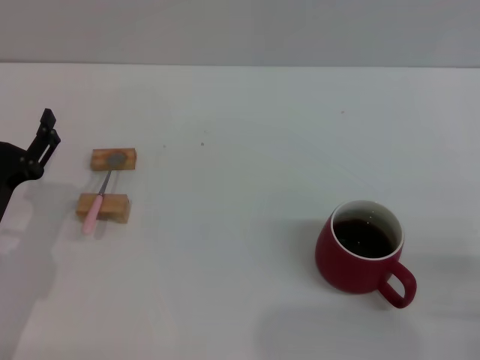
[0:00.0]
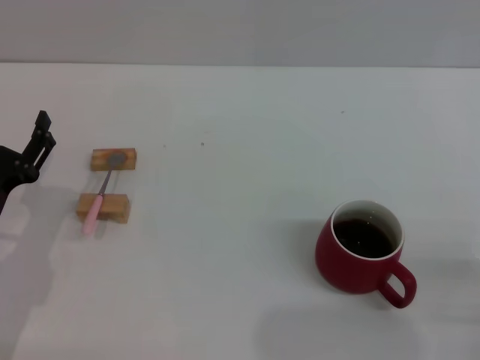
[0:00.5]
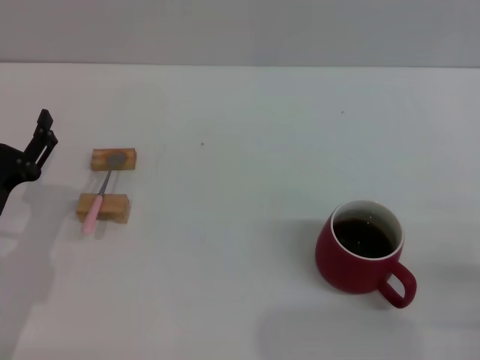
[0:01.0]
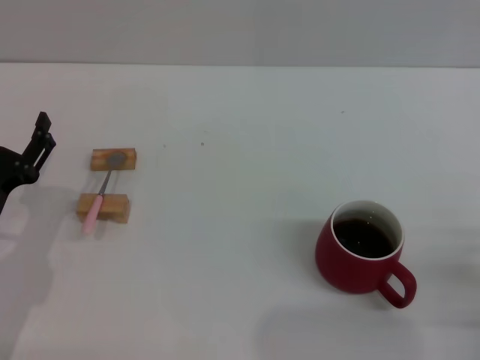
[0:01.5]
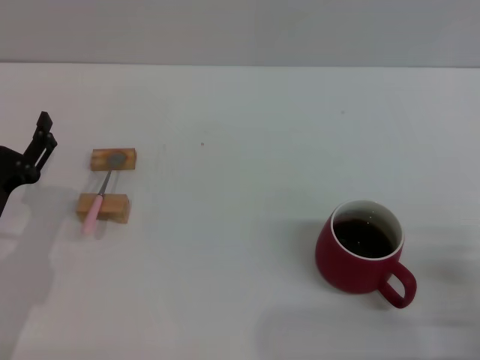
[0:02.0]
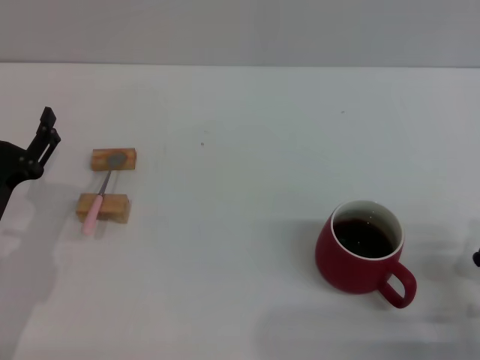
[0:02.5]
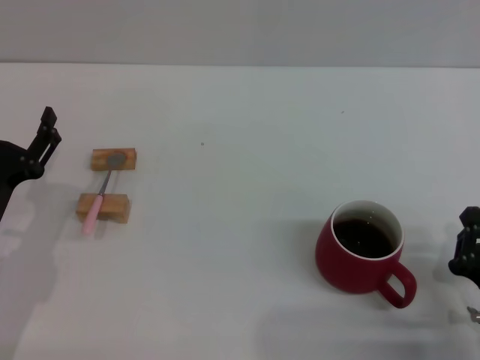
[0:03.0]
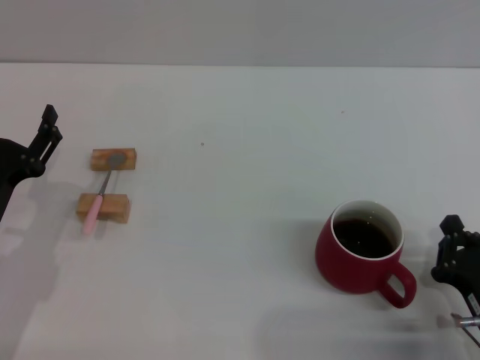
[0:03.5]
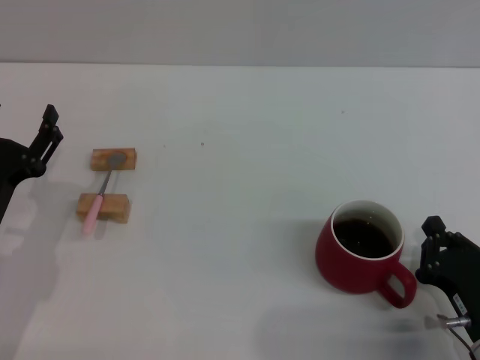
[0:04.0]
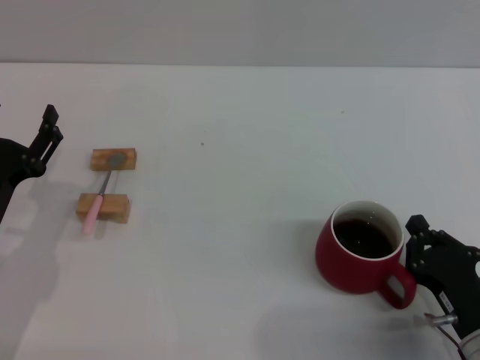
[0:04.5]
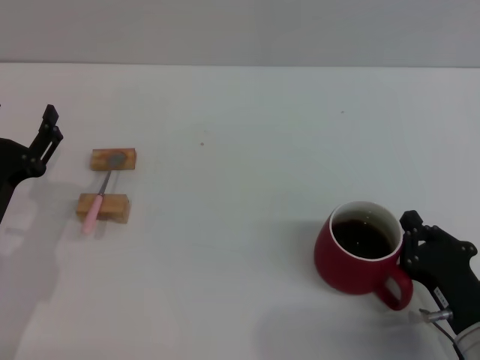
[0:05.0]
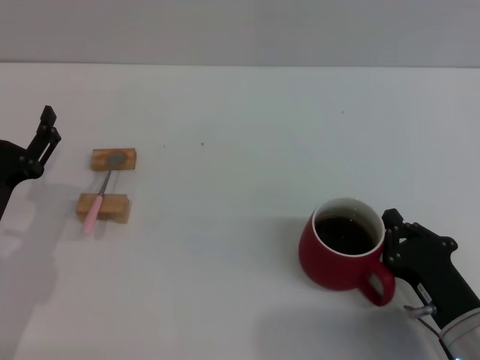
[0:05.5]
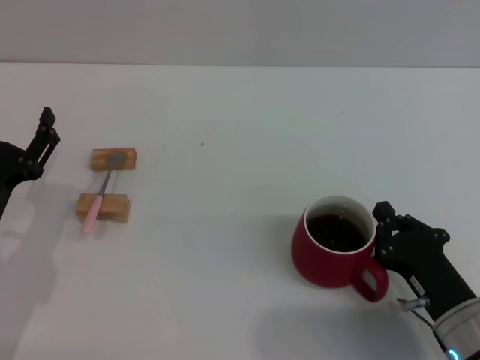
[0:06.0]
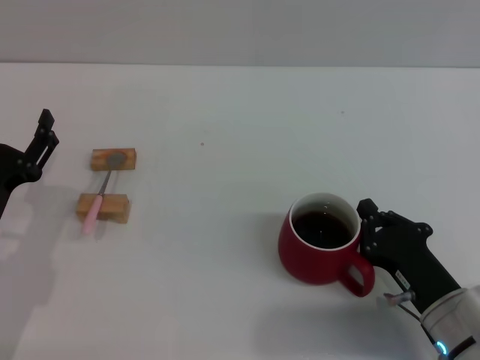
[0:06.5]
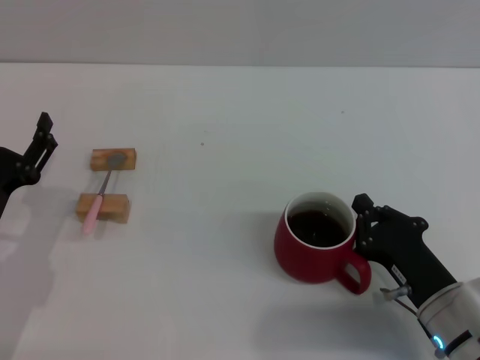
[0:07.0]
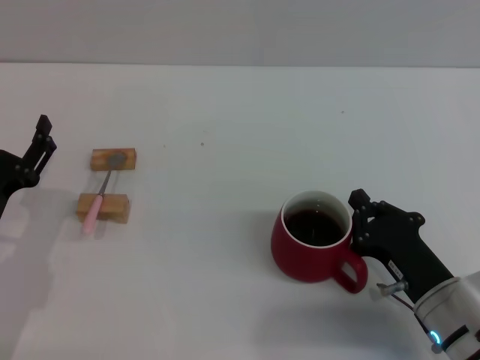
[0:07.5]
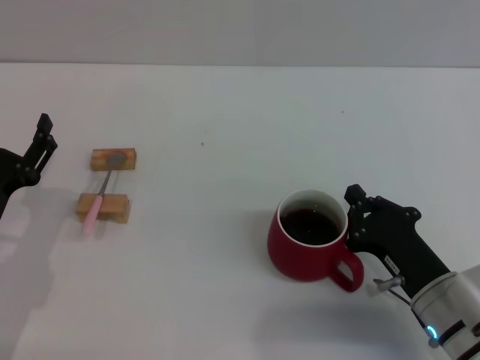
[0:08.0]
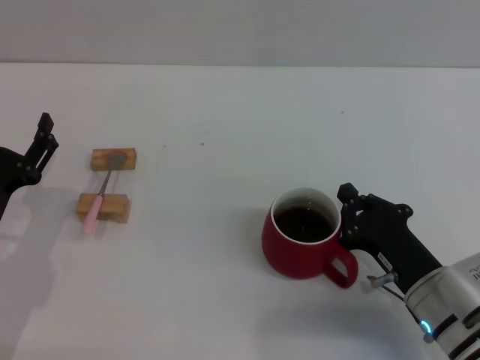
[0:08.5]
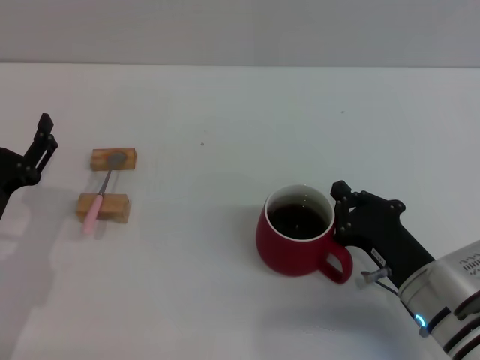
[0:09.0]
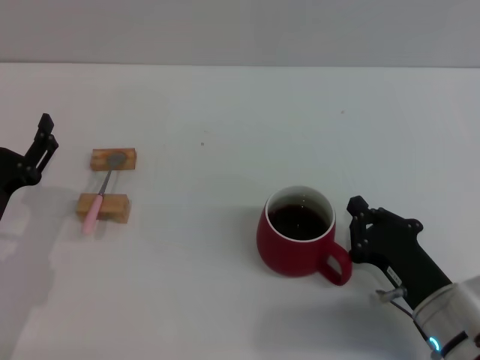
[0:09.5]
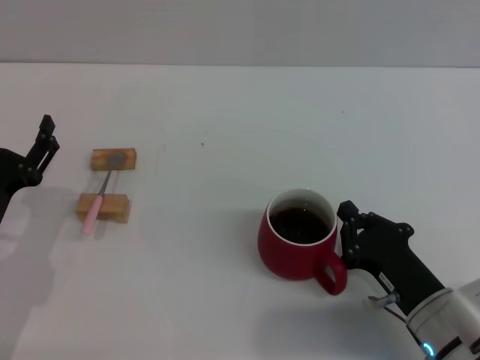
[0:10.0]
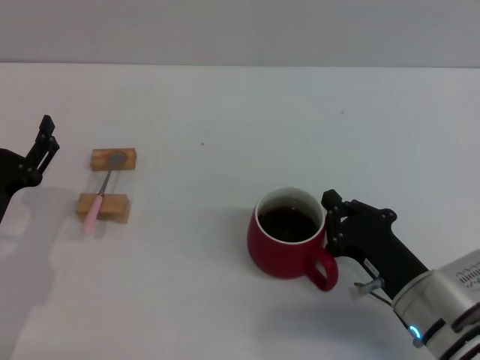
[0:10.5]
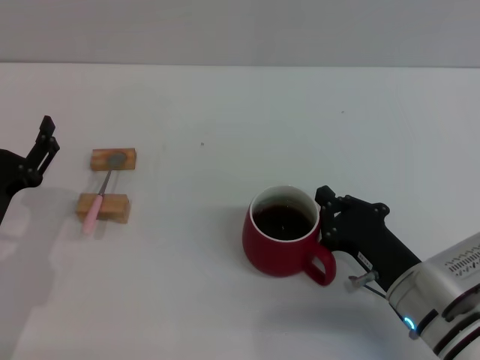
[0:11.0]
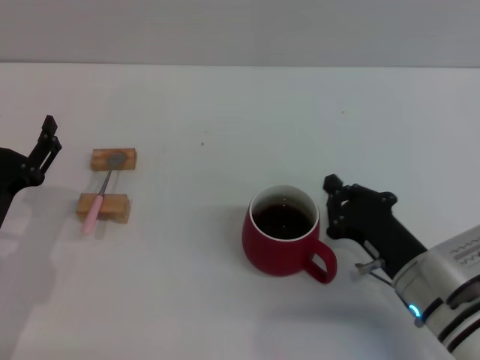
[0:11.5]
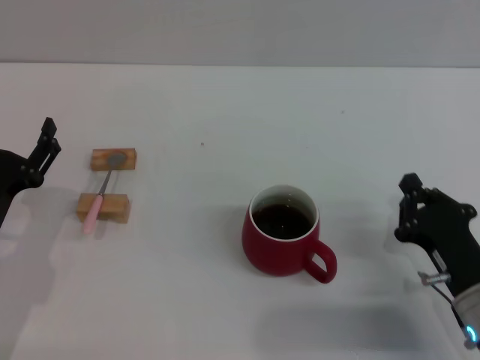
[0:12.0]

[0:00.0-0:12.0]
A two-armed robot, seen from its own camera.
Task of the whole recording: Move the red cup to the center, lift the pink spoon, stir it three times in the cup, and put the spoon into the cup.
0:02.0 to 0:04.0: The right gripper moves to the left, some 5 cm.
0:04.0 to 0:06.0: The grippers move only a little.
0:06.0 to 0:12.0: The grippers make only small movements.

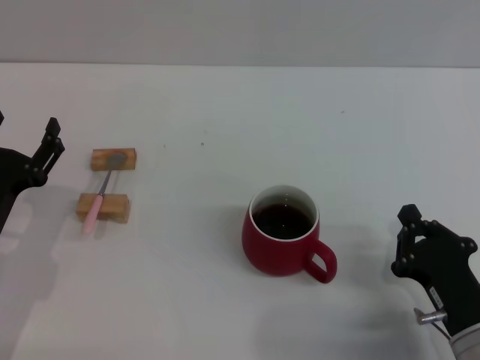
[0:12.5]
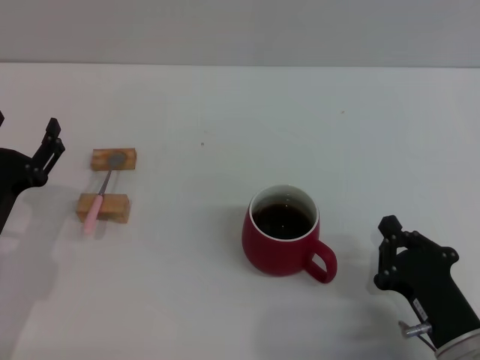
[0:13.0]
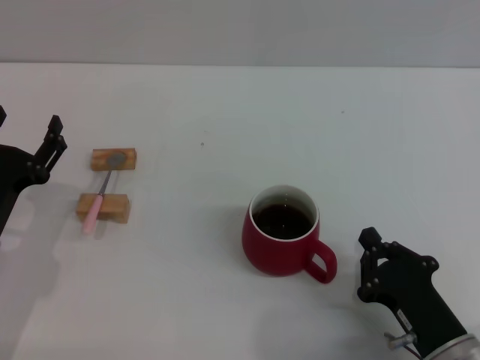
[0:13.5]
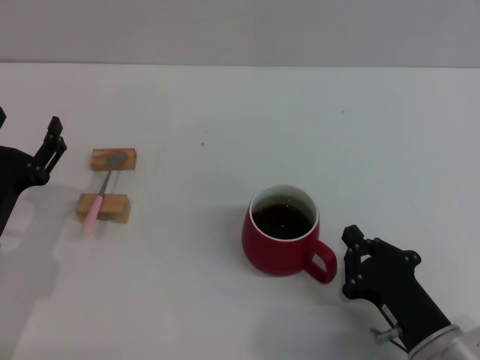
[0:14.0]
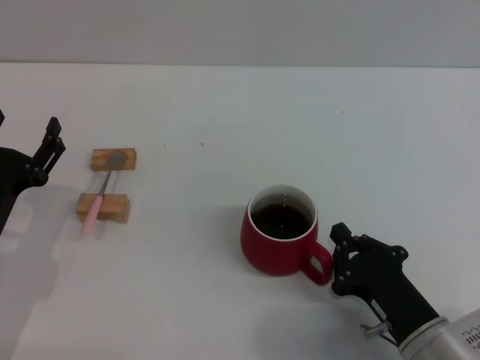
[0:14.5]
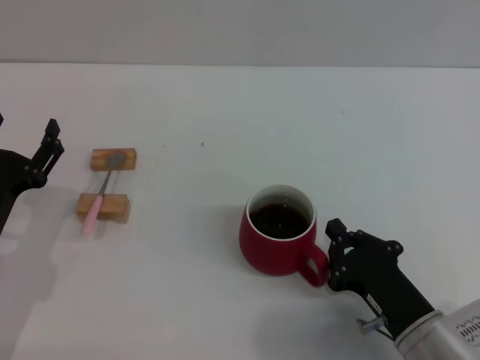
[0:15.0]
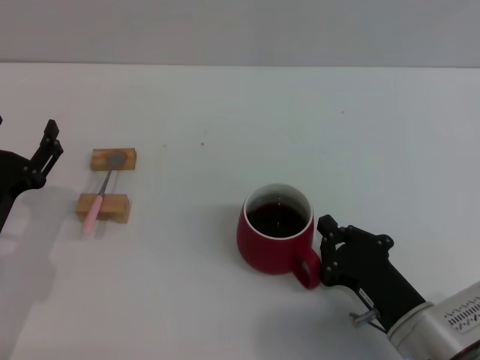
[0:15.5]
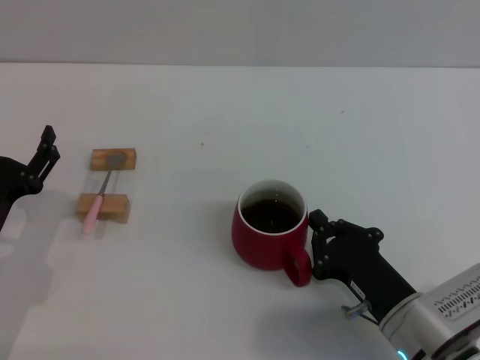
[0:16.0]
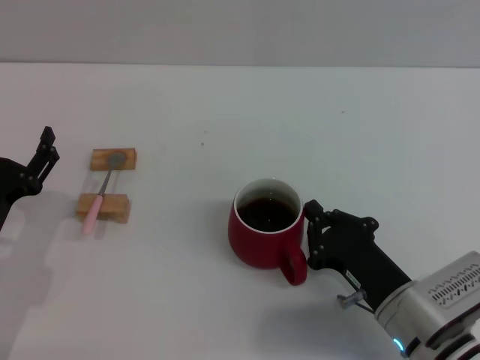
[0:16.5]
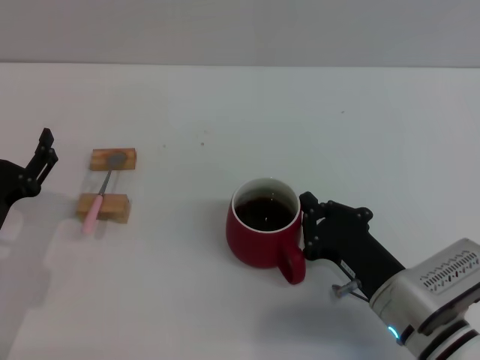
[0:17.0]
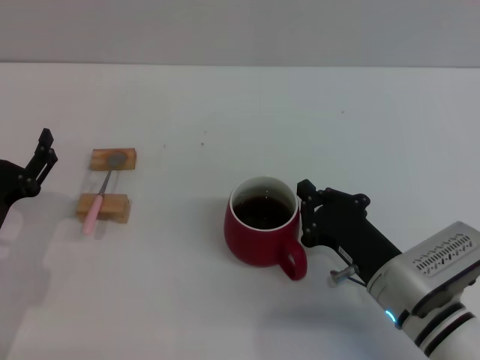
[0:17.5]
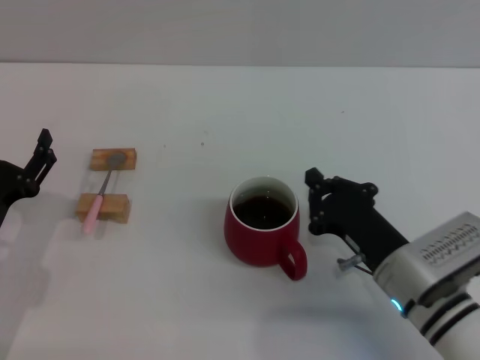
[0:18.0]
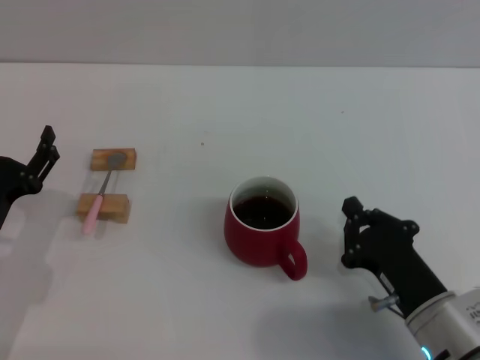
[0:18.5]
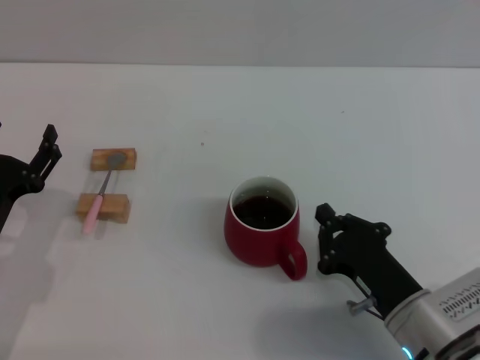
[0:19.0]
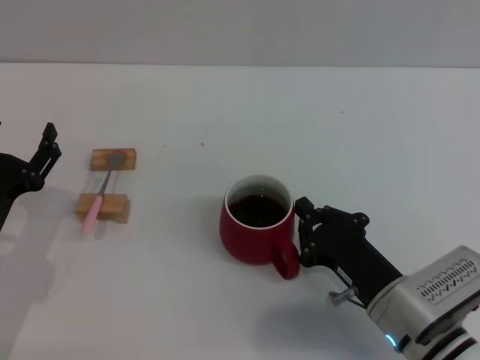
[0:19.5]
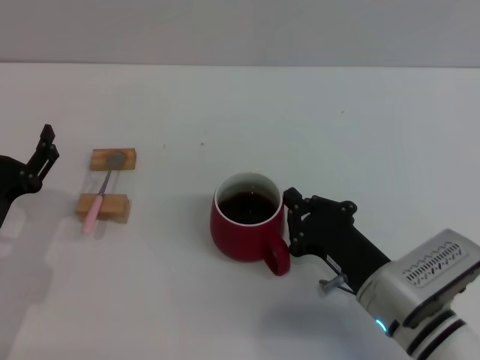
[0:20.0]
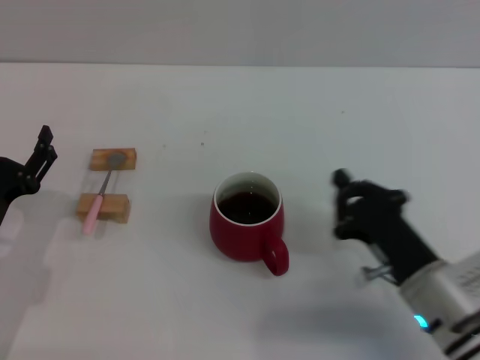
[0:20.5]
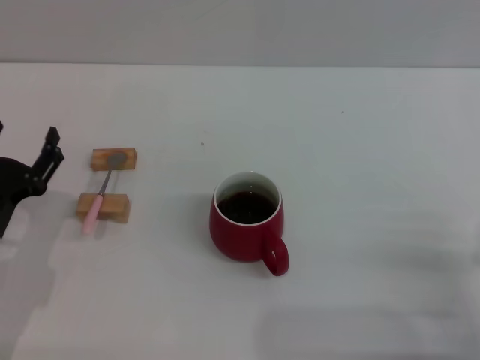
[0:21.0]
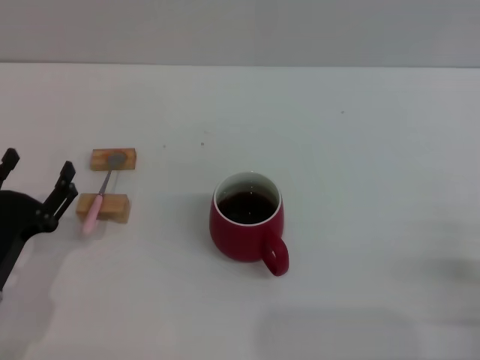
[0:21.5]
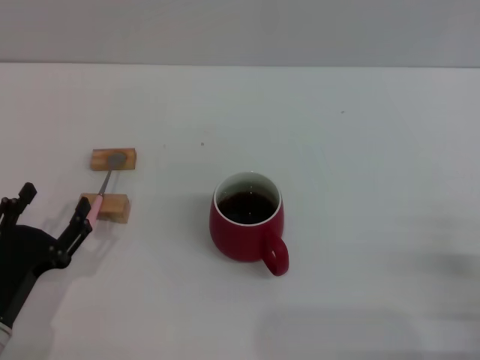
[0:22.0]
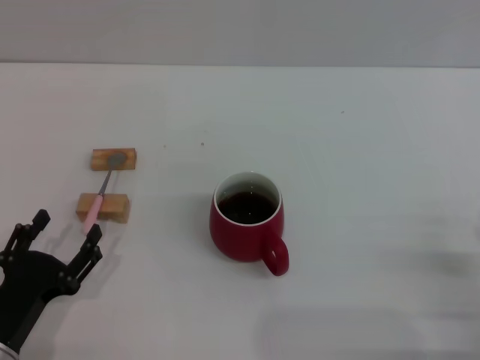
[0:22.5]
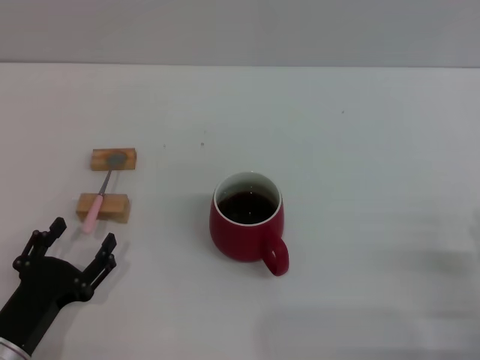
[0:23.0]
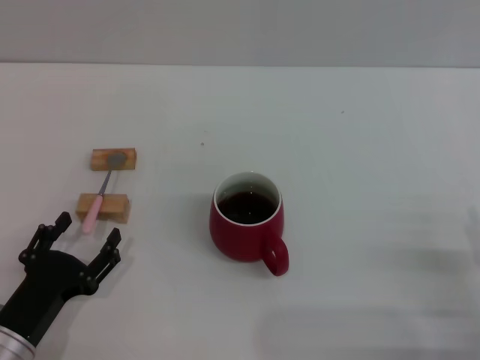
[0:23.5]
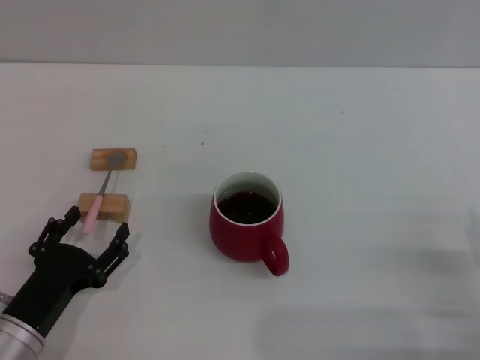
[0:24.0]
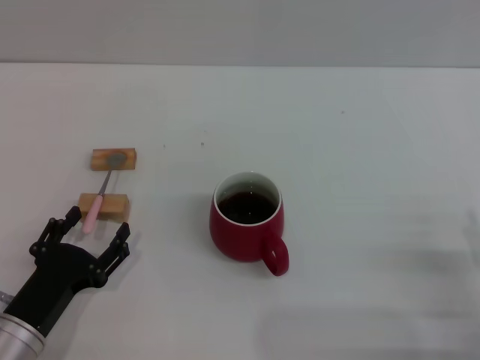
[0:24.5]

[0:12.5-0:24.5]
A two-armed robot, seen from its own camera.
Task of the whole recording: Move the red cup to the center, lift the pink spoon, stir it three times in the cup, and put the spoon into the cup.
0:12.5 to 0:14.5: There are only small adjustments of the grippers.
0:14.5 to 0:16.5: The grippers move only a little.
0:16.5 to 0:20.5: The grippers stay close to where they were, moving slightly.
0:20.5 to 0:22.5: The right gripper travels to the right and backward by some 15 cm, and opens up, while the left gripper goes about 10 cm backward.
0:22.5 to 0:24.5: The grippers make only small movements.

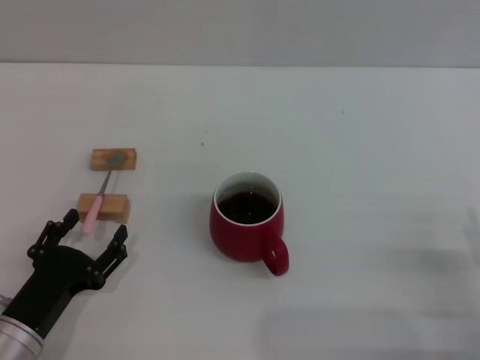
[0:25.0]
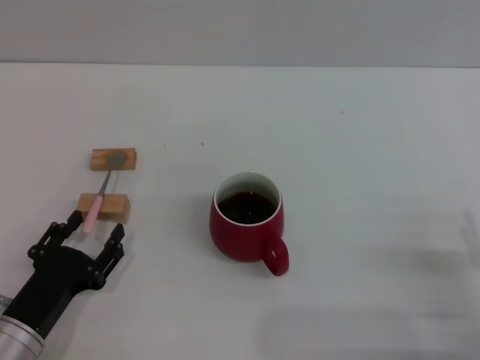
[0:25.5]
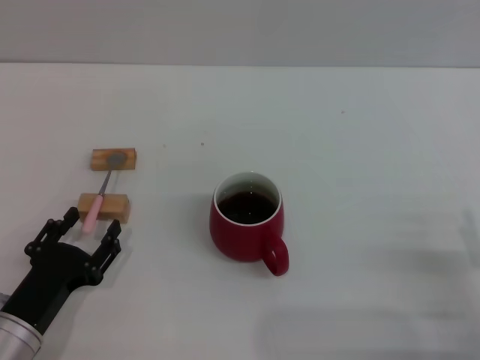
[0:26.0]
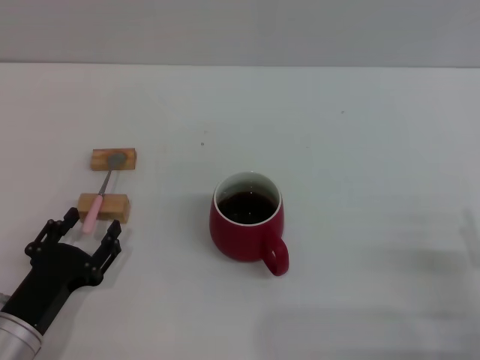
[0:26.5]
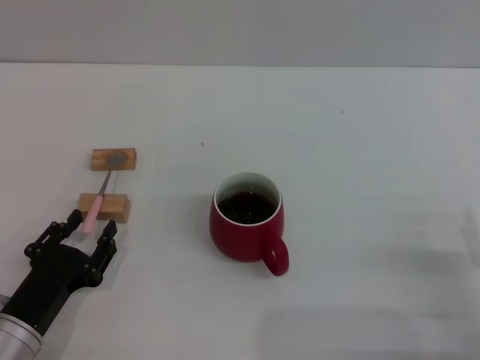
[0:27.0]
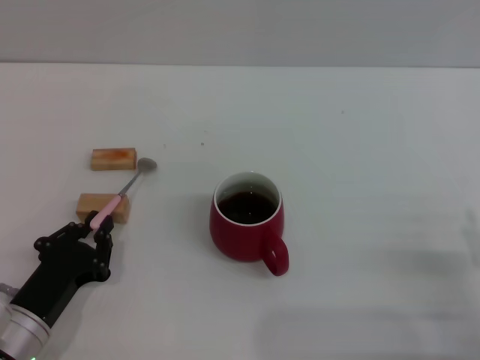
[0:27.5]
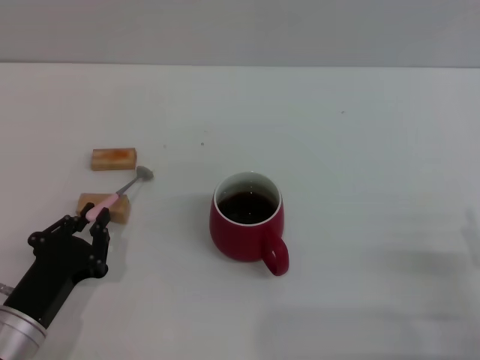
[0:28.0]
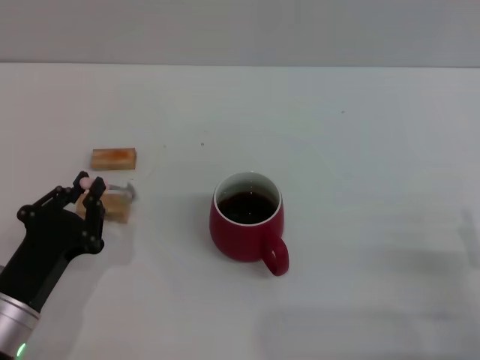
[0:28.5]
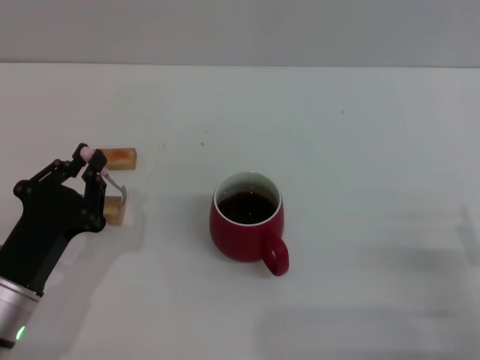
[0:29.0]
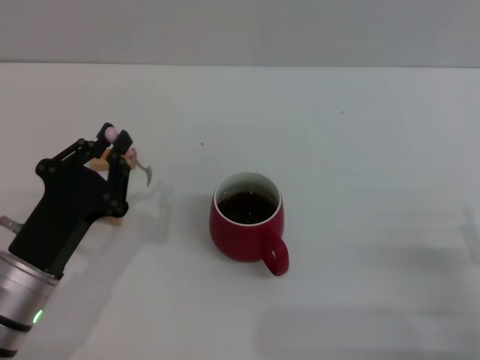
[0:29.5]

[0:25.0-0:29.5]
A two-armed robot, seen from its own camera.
Task of the whole recording: Move the red cup to the center, lift the pink spoon, stir it three times in the cup, and put the spoon into the cup.
Step, 0:25.0 to 0:29.0: Pick up the spoon with the left gripper.
0:25.0 to 0:27.0: Neither gripper changes place.
0:27.0 to 0:29.5: The left gripper moves upward, roughly 5 cm, and closes its fingers.
